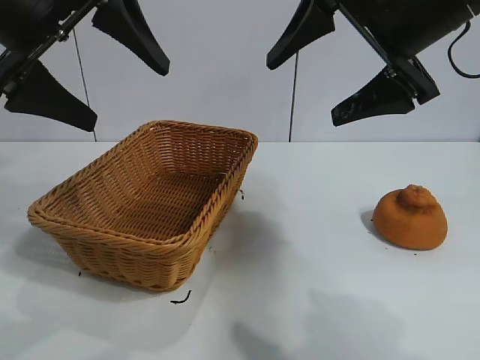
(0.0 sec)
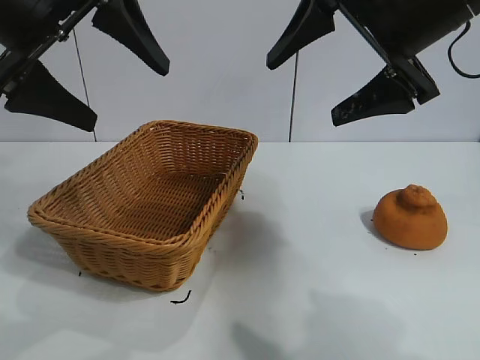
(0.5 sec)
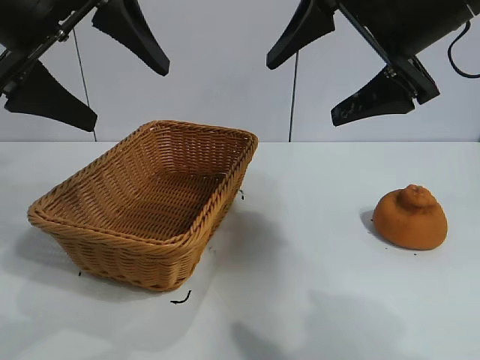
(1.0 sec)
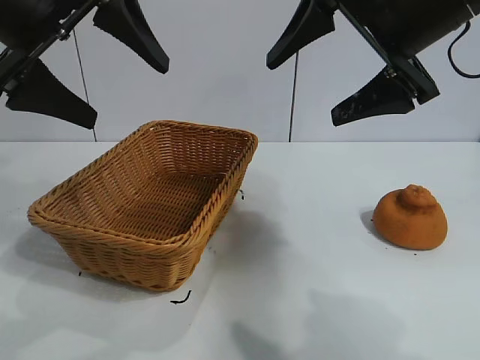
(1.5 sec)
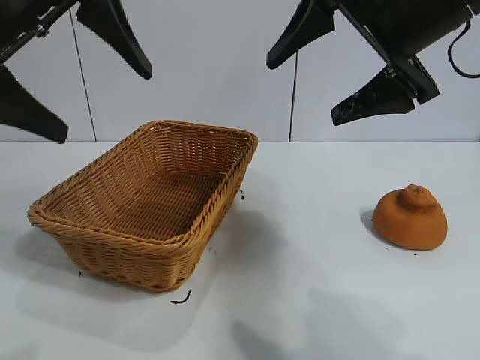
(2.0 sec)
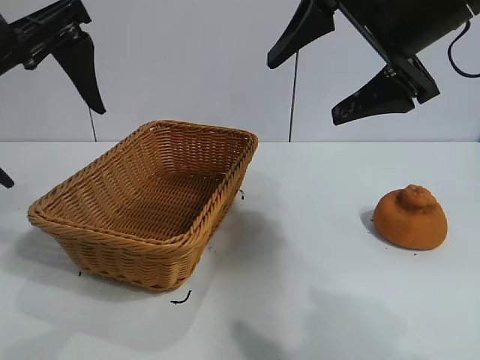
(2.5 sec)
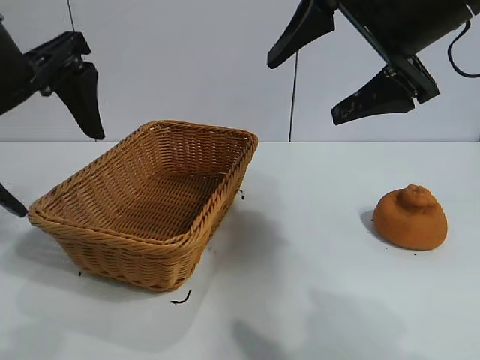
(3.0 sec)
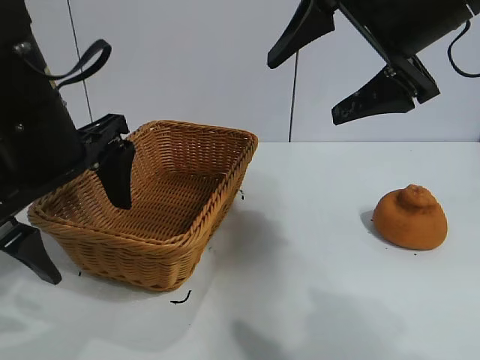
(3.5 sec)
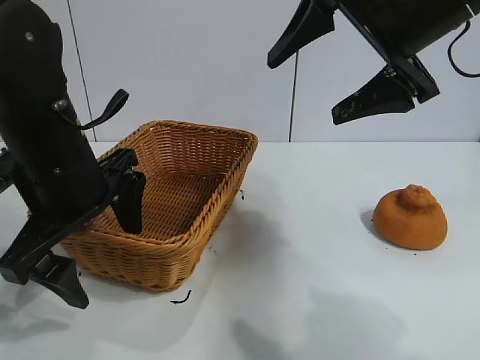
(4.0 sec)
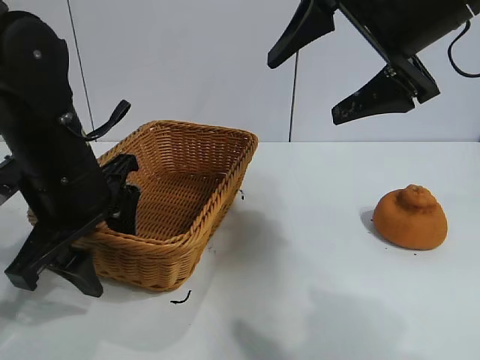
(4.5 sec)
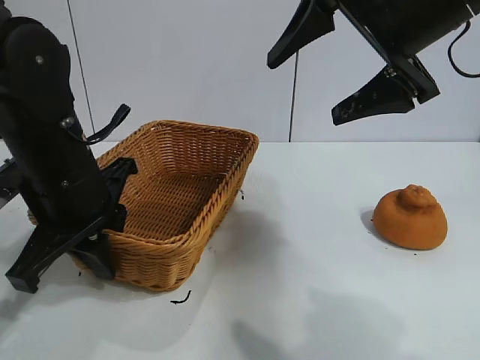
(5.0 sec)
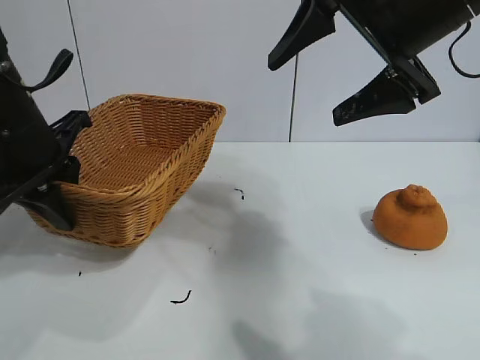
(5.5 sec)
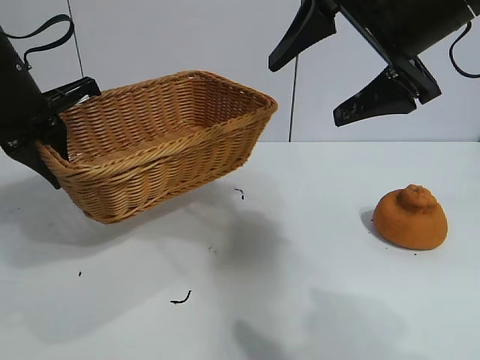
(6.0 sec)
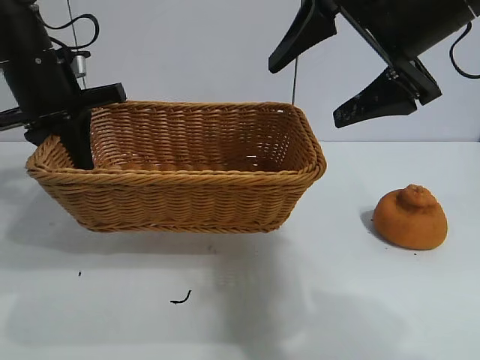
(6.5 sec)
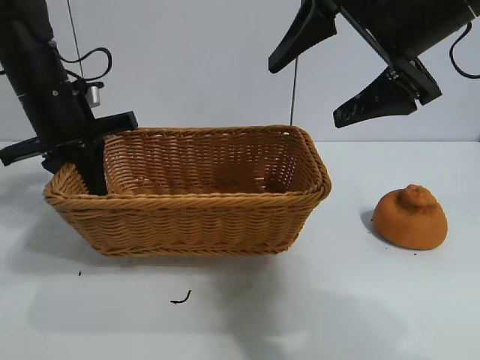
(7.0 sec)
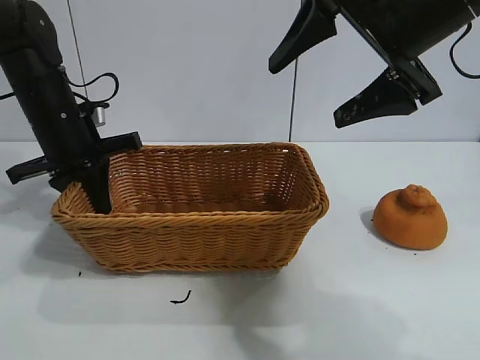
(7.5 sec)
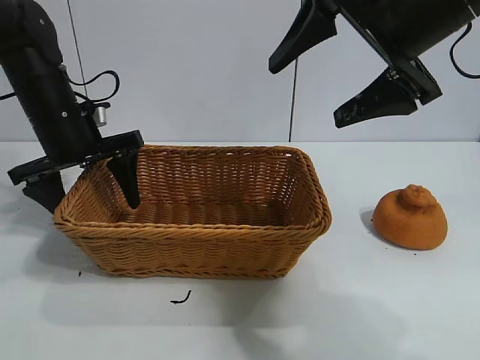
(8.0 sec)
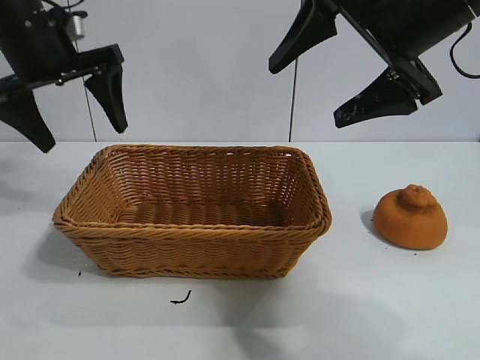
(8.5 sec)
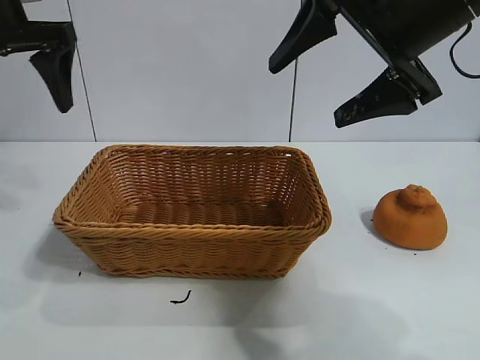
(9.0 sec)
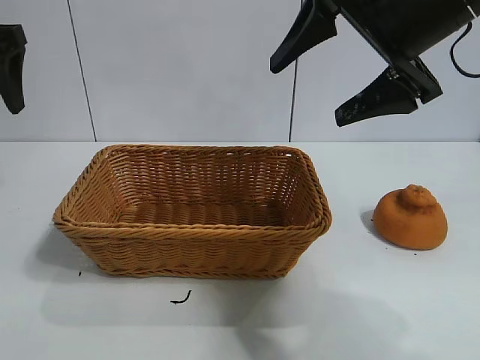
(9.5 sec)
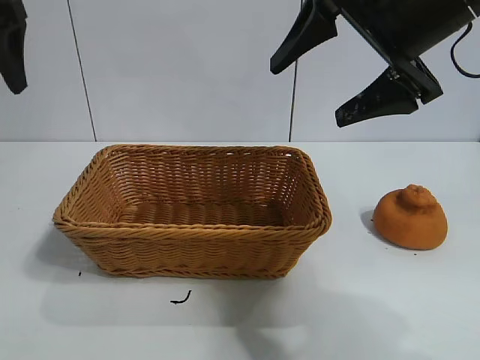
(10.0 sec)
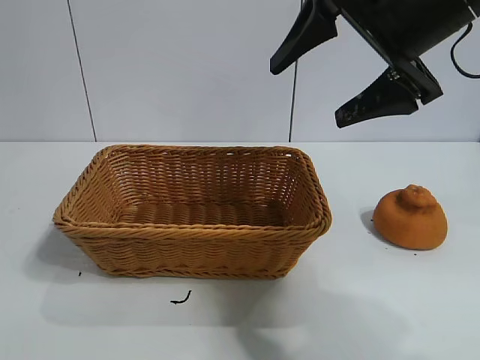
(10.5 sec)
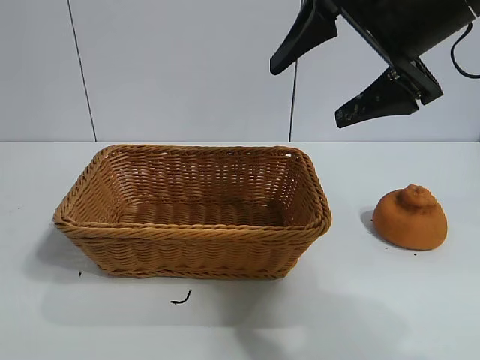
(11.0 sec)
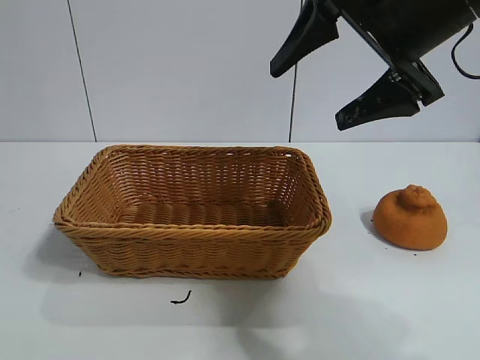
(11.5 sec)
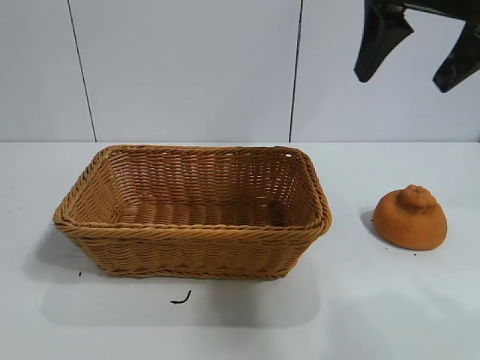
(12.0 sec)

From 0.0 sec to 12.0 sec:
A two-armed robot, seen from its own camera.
Task of the whole recording: pick up the orange and put it into the basket.
Step, from 2.0 sec to 5.0 sec: Grasp the basket with left gripper.
Step, from 5.5 sec to 8.0 sec: Place the basket in the center of view with left gripper.

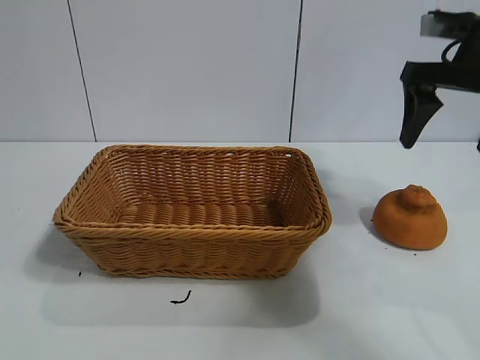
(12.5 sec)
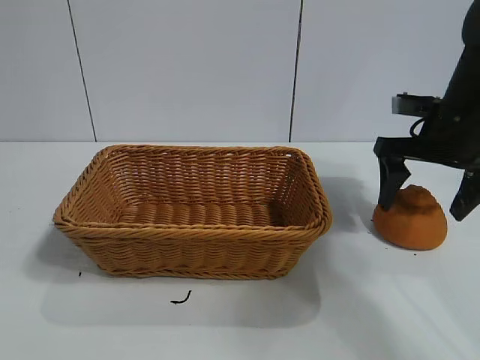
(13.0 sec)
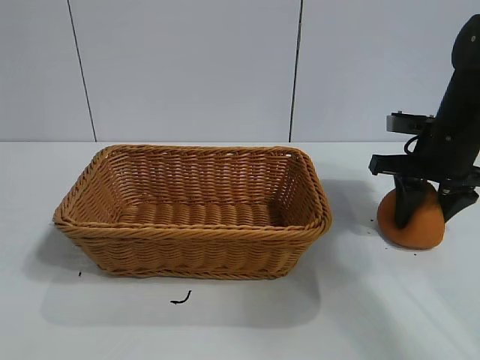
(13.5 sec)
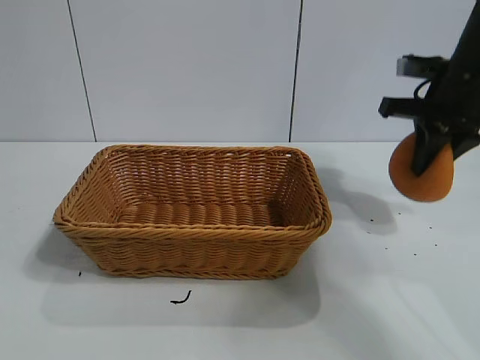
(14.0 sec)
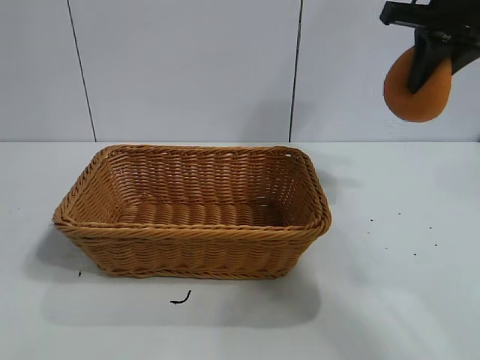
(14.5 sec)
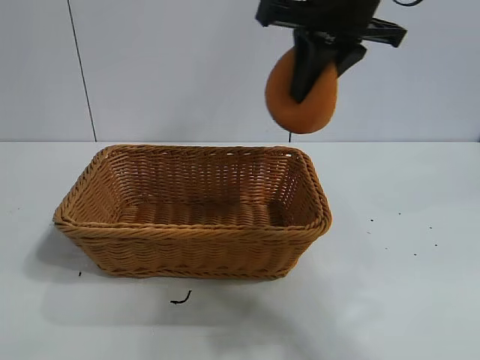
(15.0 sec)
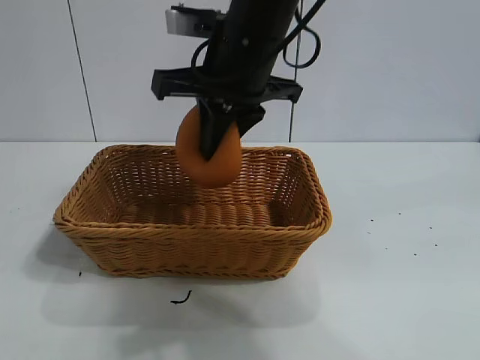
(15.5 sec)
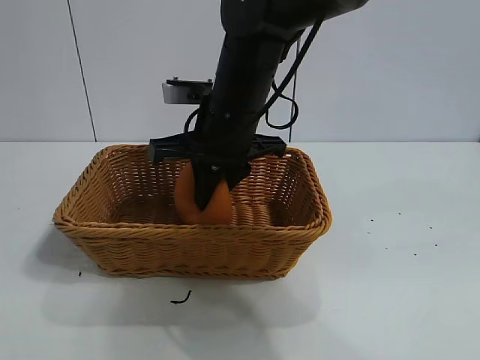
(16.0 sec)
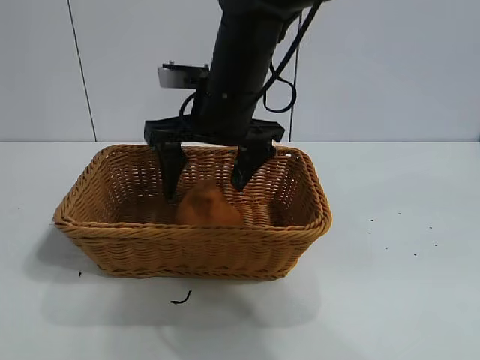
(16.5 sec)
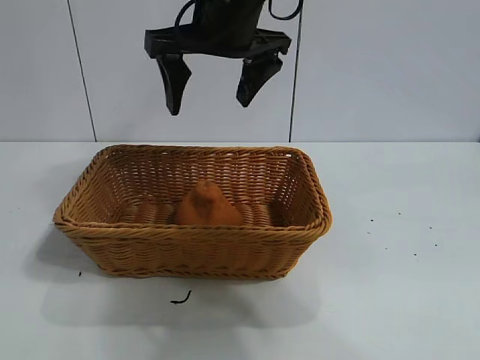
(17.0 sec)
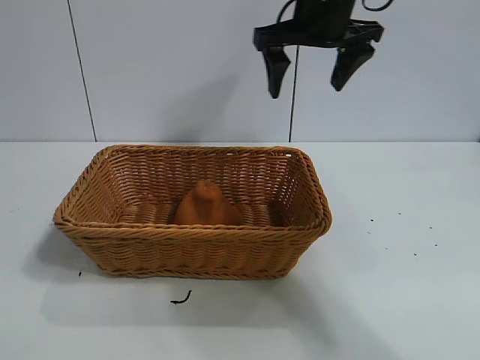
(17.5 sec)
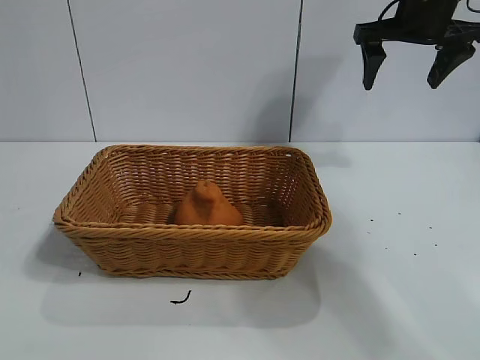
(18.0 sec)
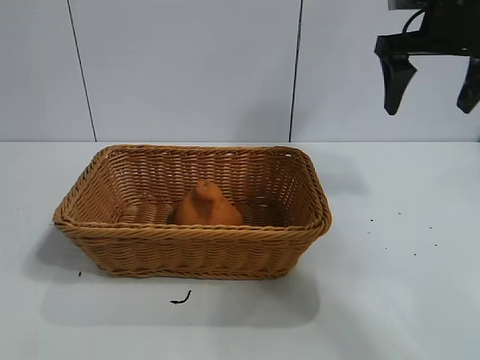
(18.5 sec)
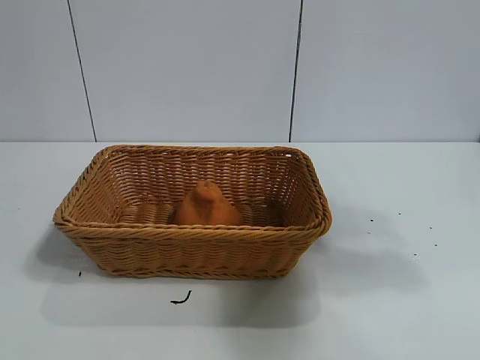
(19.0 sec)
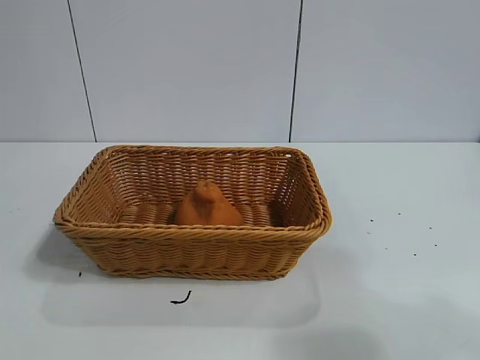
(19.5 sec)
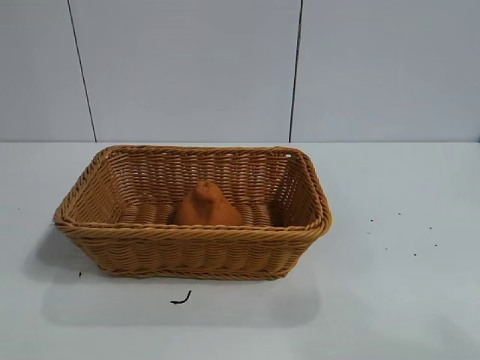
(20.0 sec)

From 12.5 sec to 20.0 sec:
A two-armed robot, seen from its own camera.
Task of the whole recording: pick up the orange and put it into the basket.
Step, from 14.0 sec to 16.0 sec: Place the orange in the basket with right gripper.
